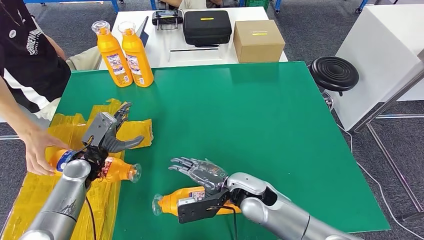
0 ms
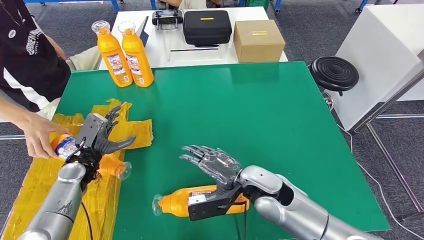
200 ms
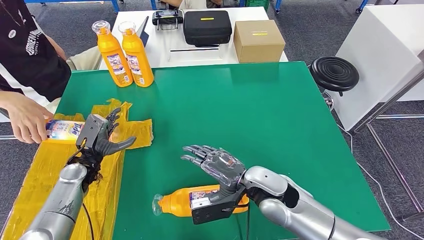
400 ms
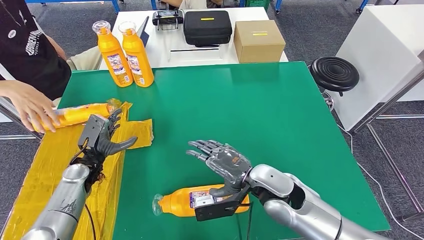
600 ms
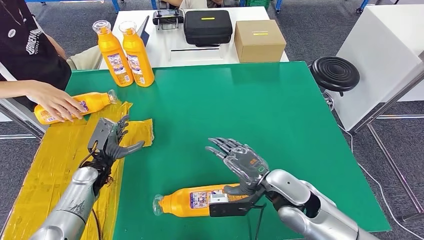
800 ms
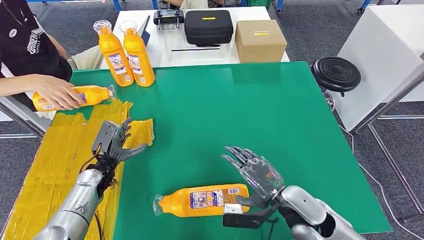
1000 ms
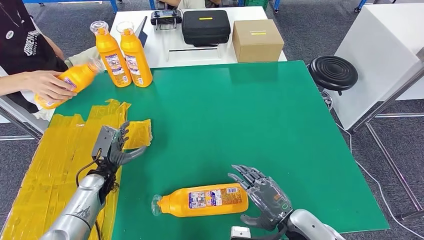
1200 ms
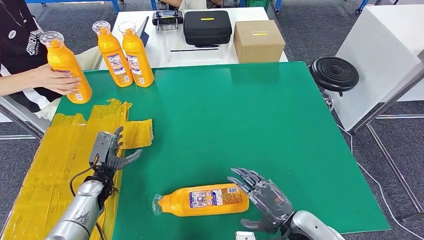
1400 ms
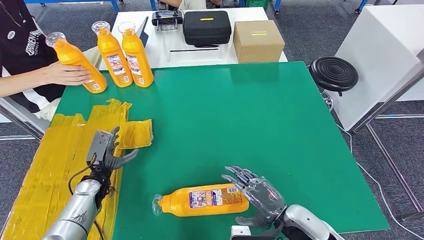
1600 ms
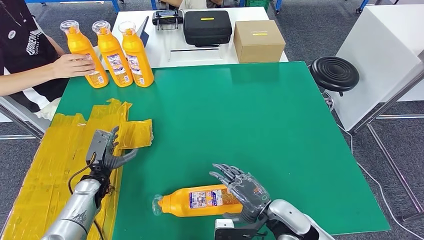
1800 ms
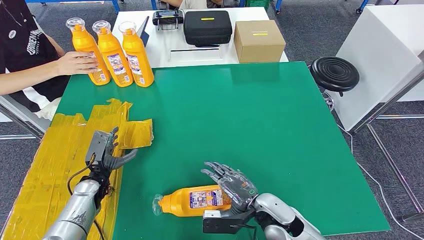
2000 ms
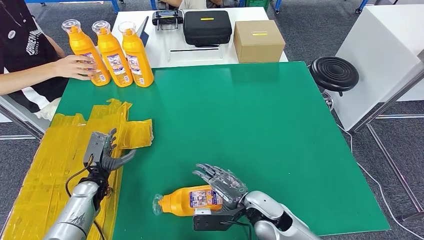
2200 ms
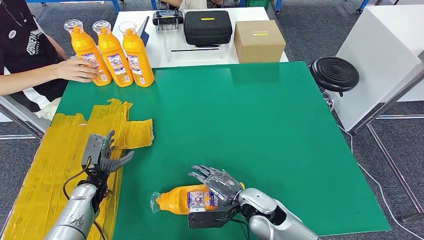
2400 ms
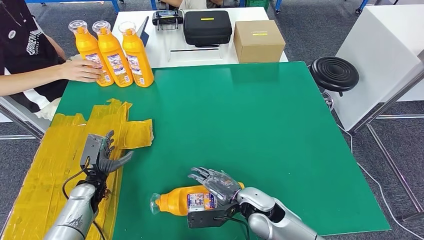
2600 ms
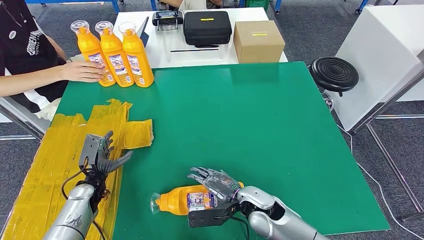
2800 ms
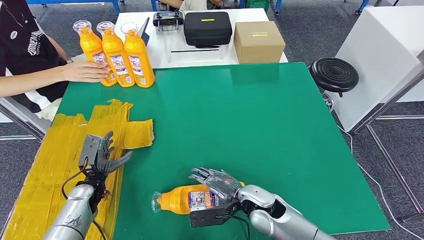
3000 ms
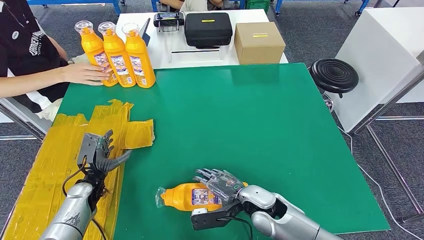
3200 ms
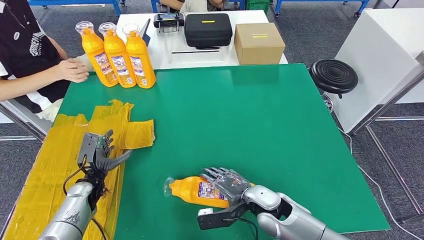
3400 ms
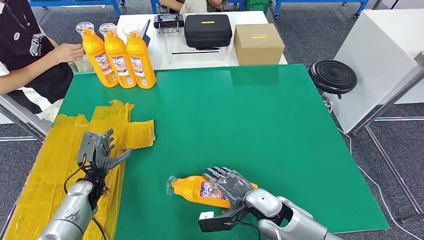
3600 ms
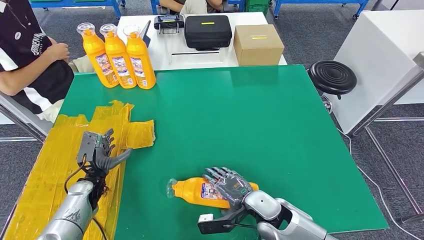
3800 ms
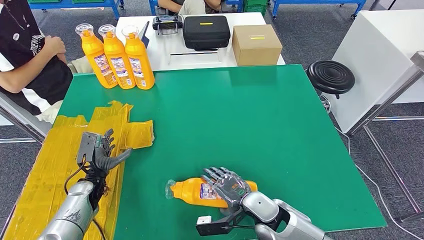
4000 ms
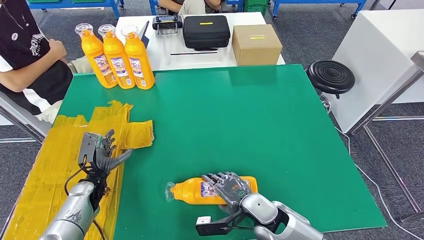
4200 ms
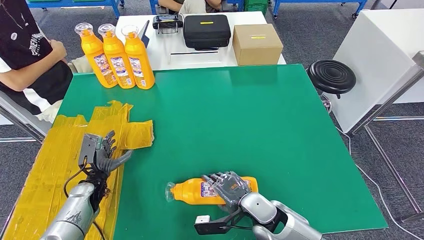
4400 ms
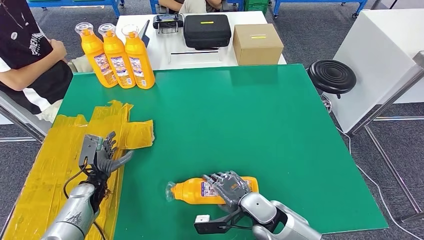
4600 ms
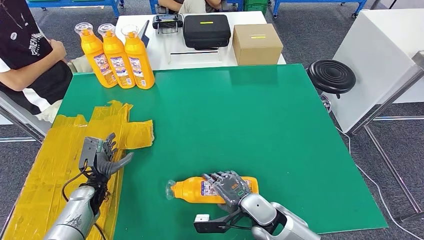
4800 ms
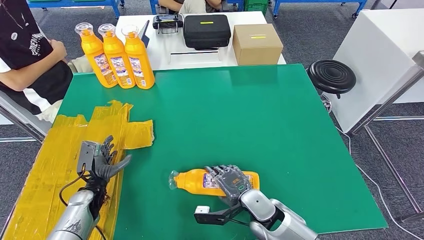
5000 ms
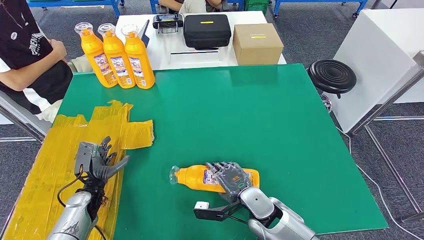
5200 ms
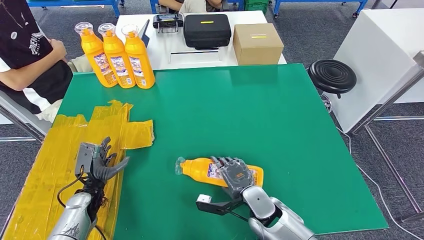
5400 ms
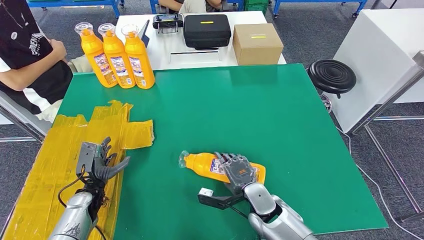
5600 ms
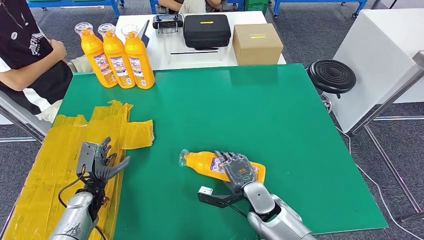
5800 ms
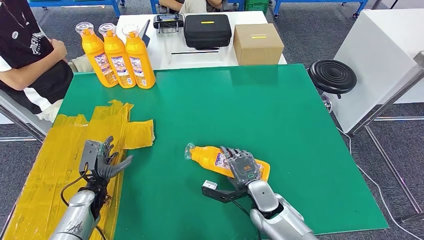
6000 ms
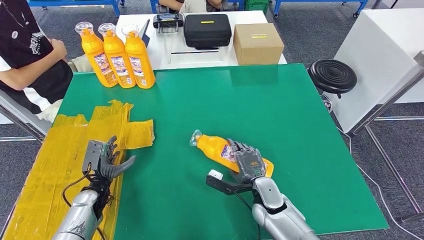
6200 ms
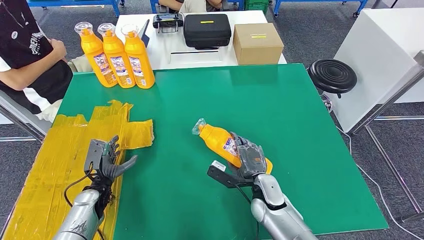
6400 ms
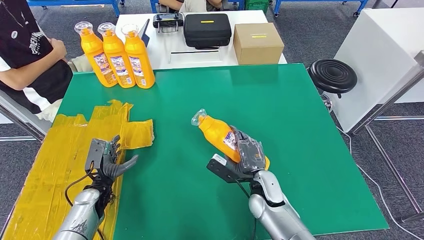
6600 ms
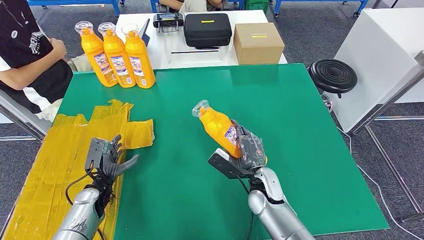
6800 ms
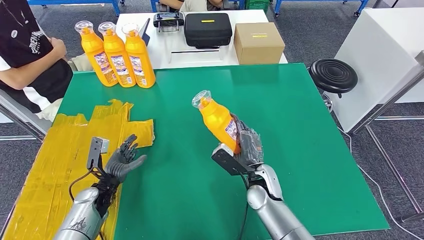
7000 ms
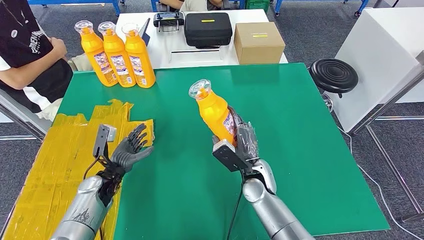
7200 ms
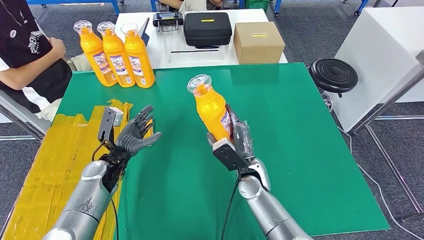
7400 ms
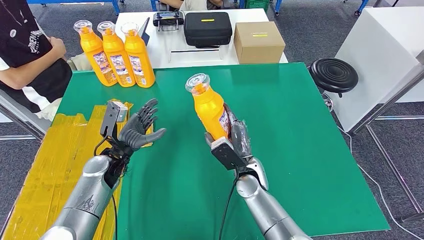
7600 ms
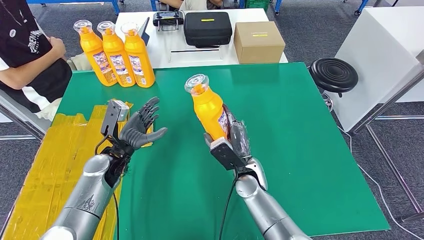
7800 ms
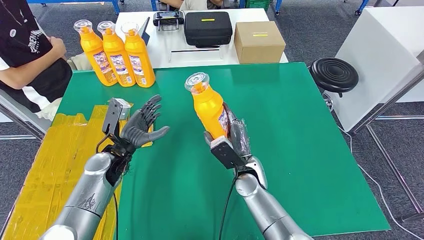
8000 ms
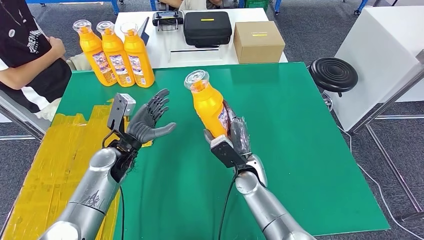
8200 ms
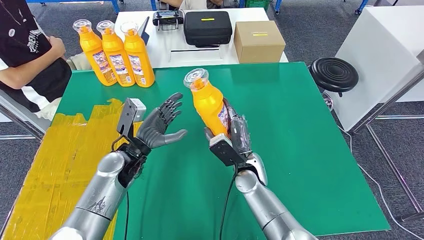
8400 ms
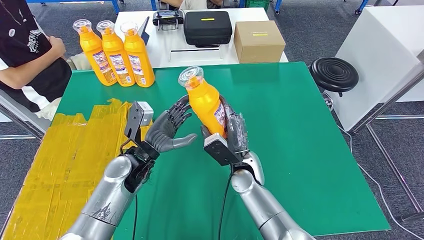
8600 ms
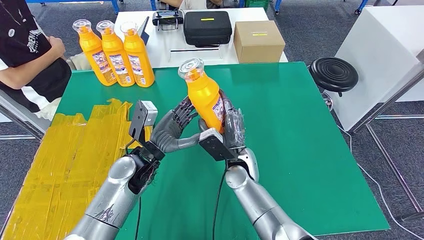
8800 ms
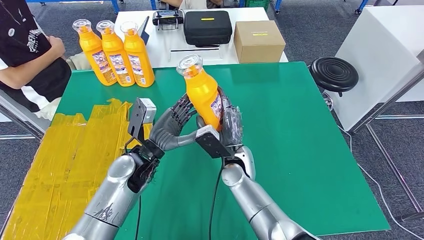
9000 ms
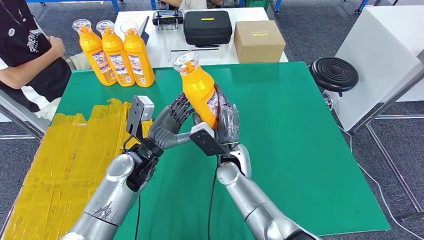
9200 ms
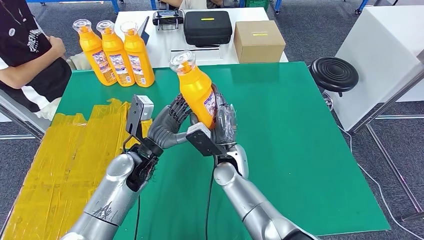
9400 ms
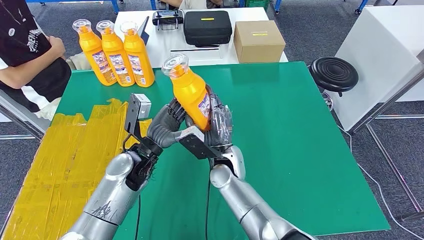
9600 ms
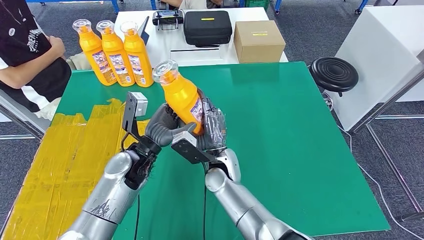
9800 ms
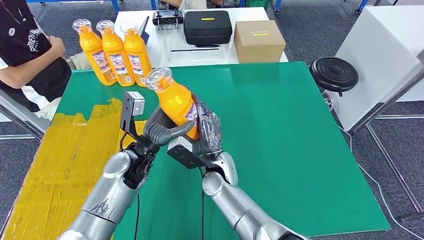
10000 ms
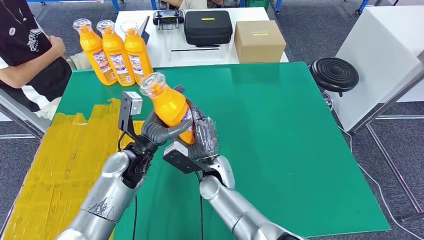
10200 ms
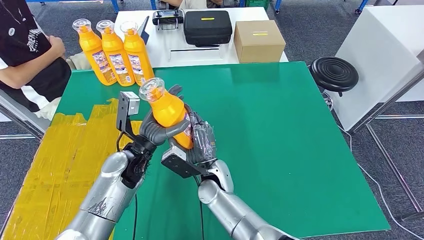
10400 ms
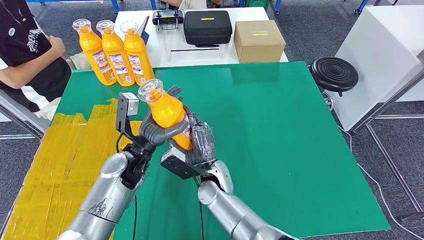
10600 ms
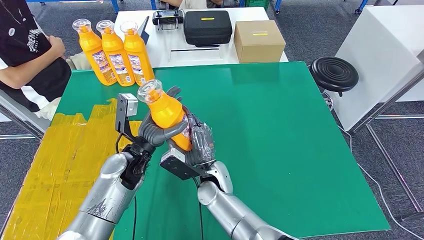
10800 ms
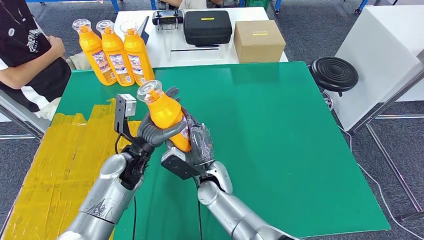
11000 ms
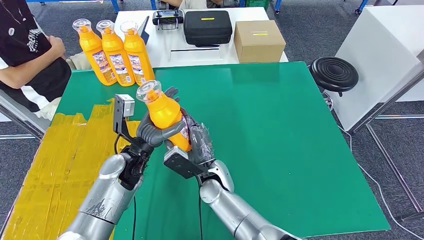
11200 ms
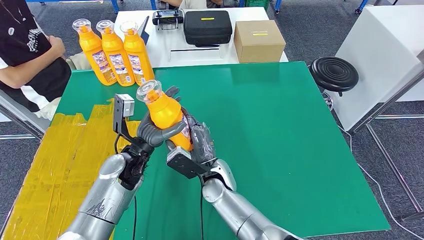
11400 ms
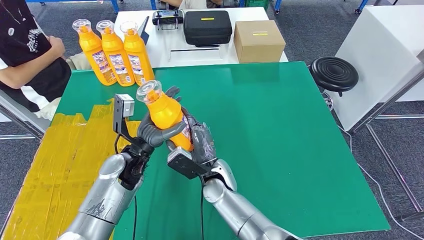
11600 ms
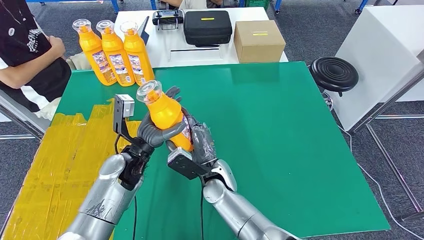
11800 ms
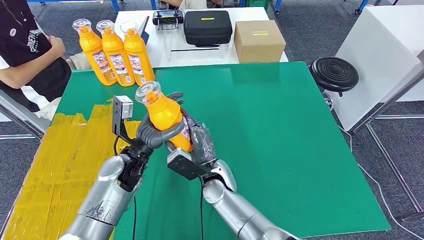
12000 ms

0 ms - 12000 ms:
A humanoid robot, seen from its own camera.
0 ms - 1600 ms: The right hand is displaced to the right and backward by about 15 cm. Meanwhile the left hand goes about 5 cm downward.
1600 ms - 3000 ms: The right hand is displaced to the left and forward by some 10 cm.
7600 ms - 9000 ms: The left hand shifts some 10 cm to the right. Meanwhile the right hand moves approximately 5 cm.
9000 ms - 10400 ms: The right hand heads to the left, covering roughly 5 cm.
10400 ms - 12000 ms: The hands stay close to where they were, moving slightly.

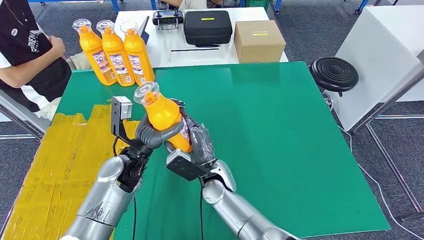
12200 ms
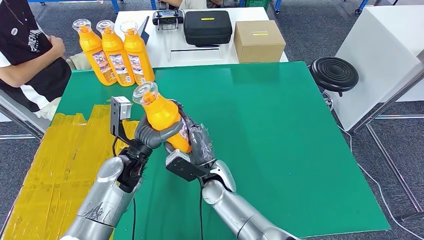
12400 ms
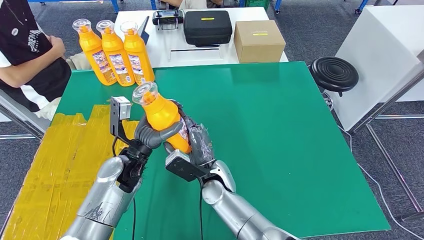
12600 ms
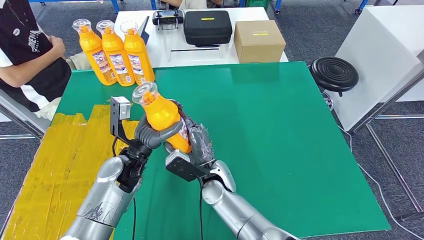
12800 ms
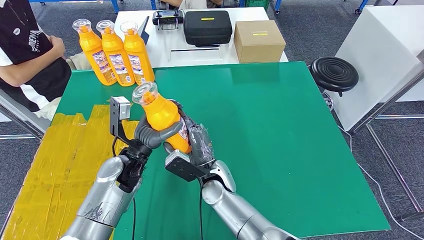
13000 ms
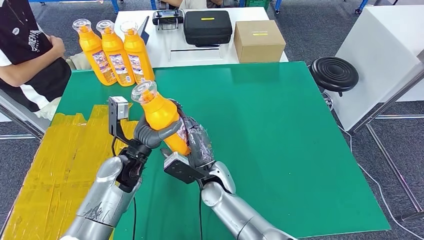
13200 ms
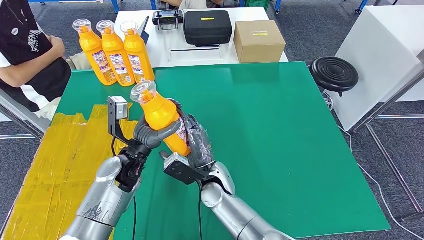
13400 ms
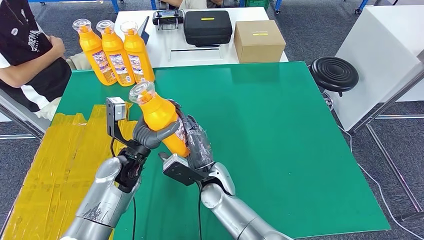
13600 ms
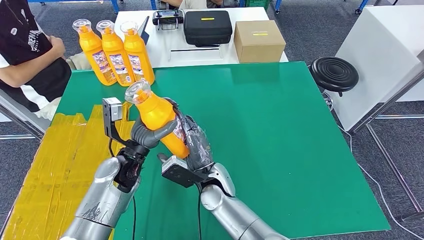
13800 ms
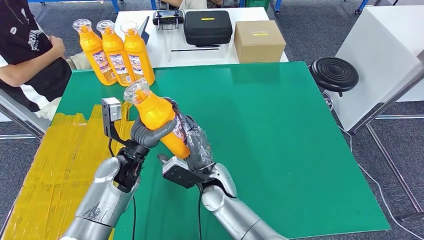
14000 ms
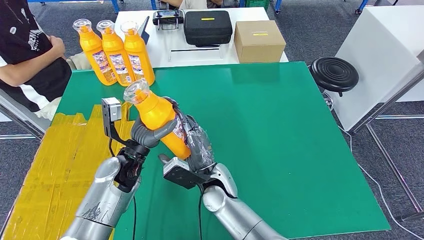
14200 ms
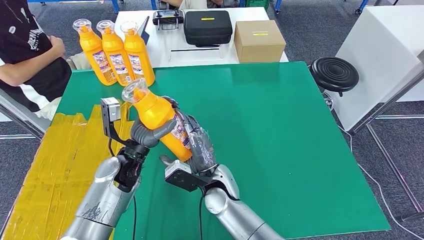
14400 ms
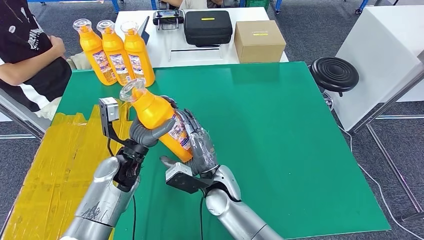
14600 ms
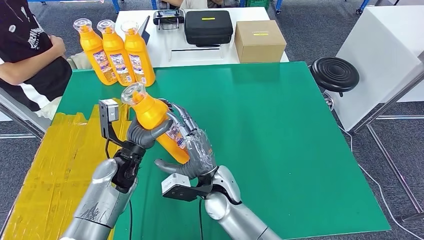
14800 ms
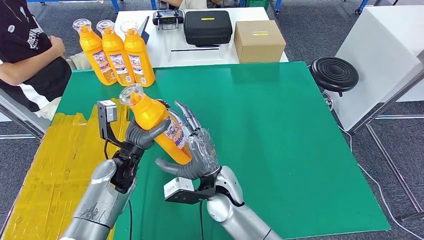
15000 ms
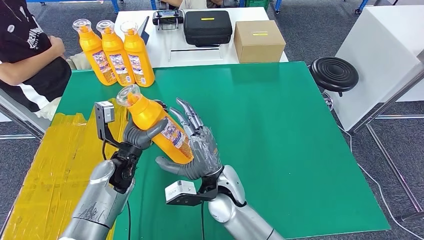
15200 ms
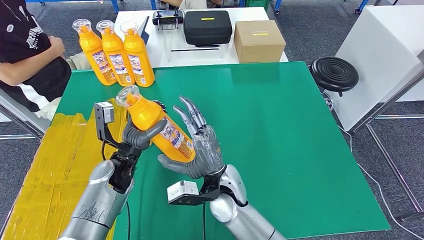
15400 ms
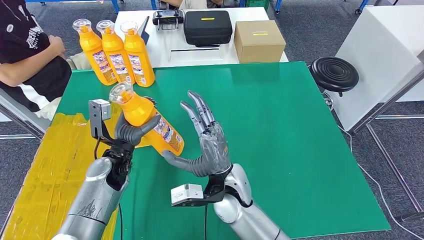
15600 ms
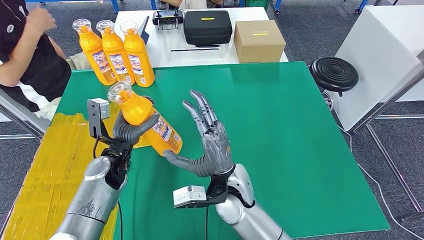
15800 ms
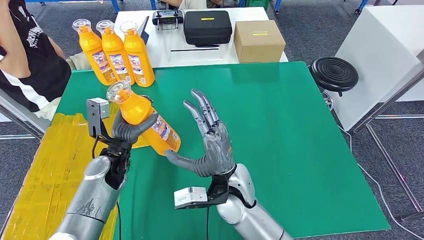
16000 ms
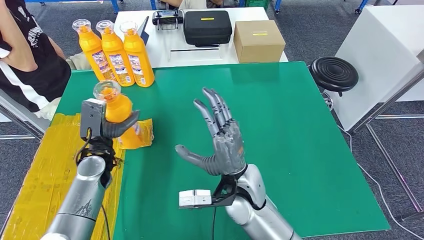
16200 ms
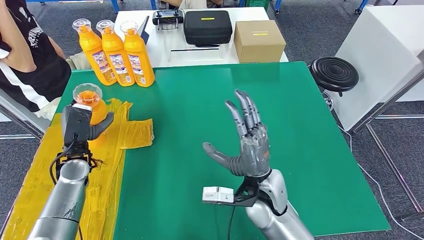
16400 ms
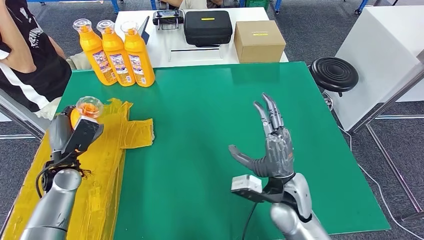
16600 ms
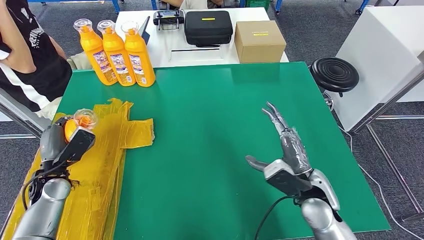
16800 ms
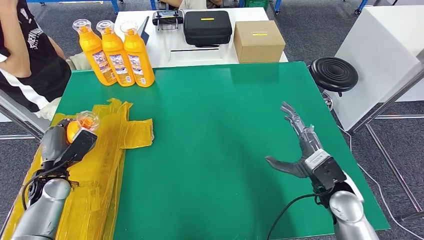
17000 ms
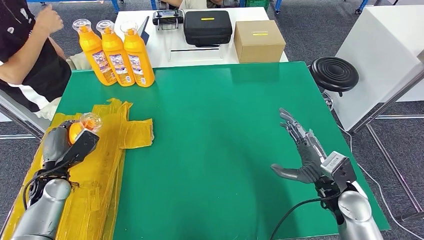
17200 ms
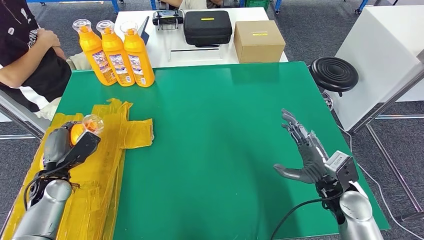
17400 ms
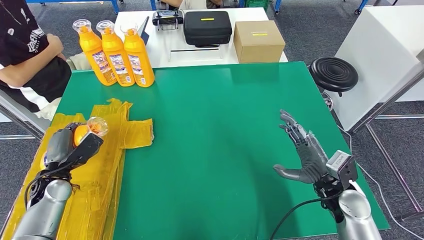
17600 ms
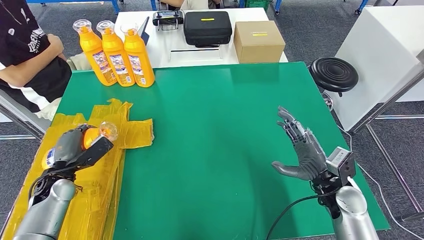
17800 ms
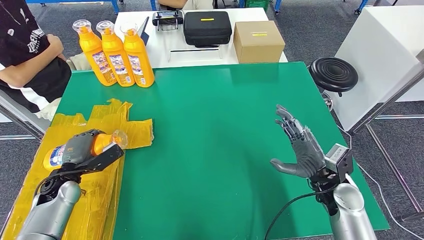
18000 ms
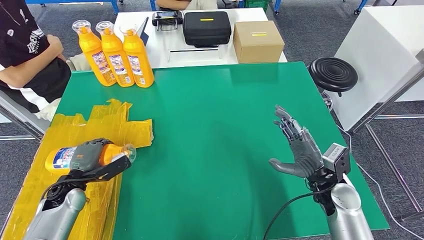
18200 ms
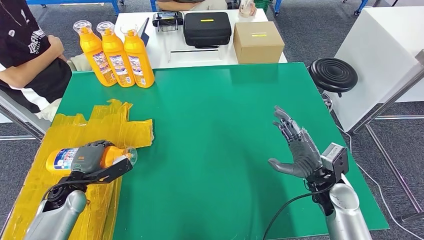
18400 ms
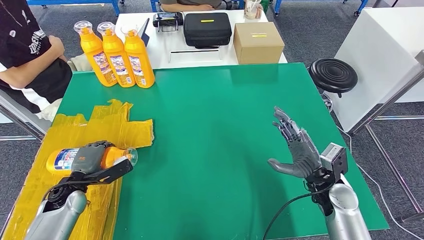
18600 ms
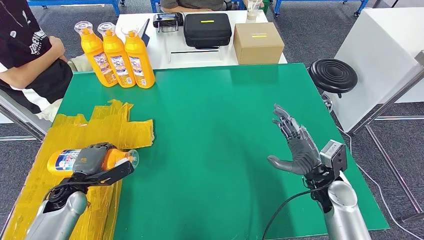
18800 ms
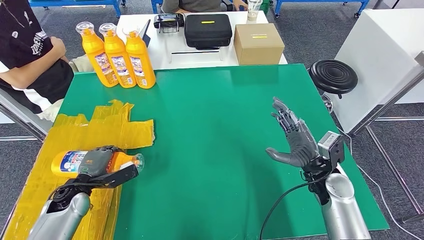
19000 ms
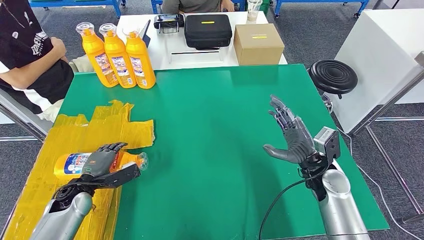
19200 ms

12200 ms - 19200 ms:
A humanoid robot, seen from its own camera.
12200 ms - 13600 ms: Both hands stay put.
13600 ms - 15000 ms: There are only small adjustments of the hands.
